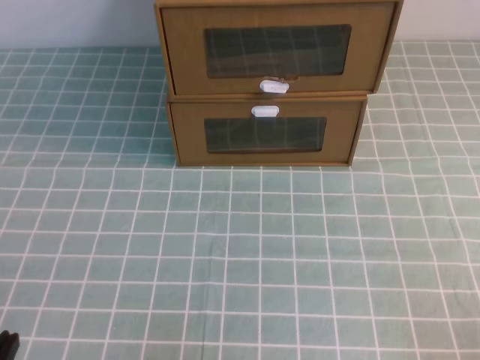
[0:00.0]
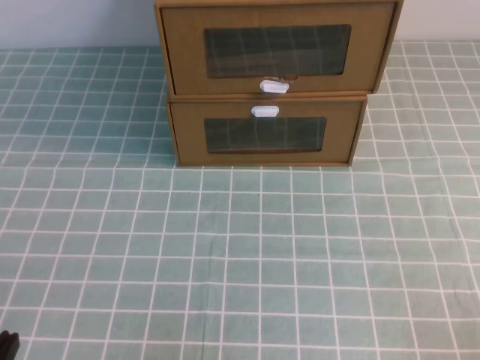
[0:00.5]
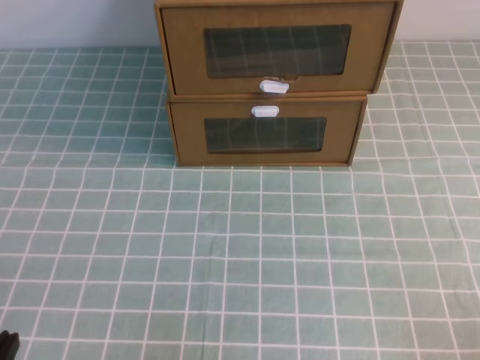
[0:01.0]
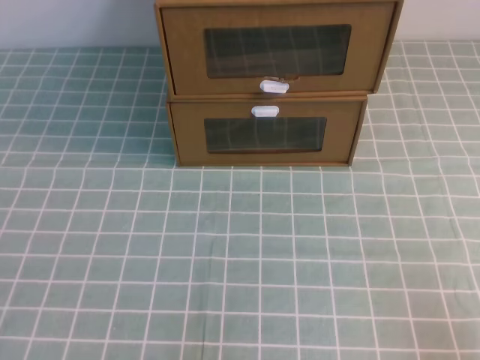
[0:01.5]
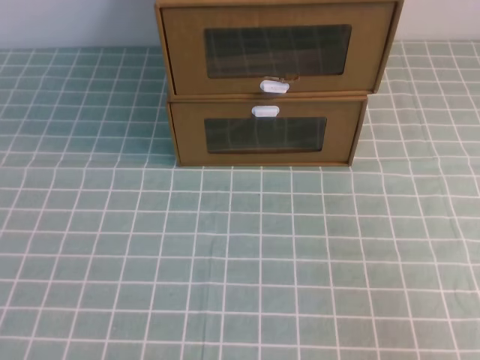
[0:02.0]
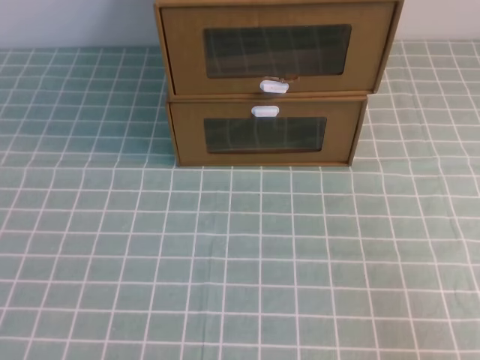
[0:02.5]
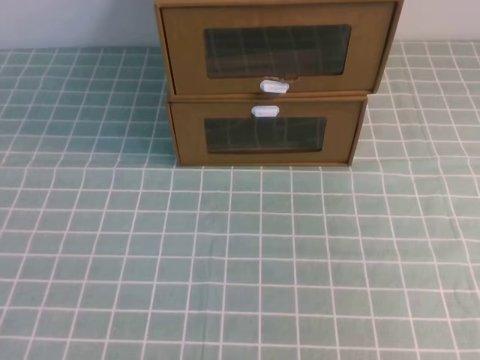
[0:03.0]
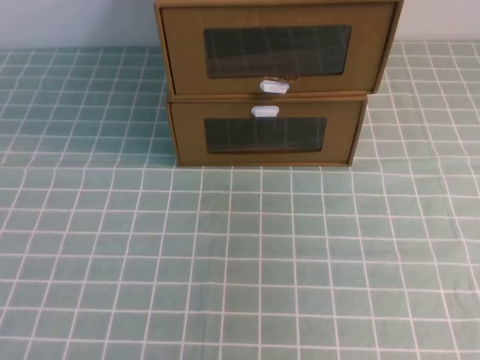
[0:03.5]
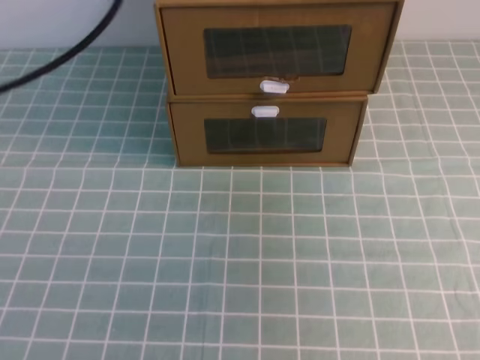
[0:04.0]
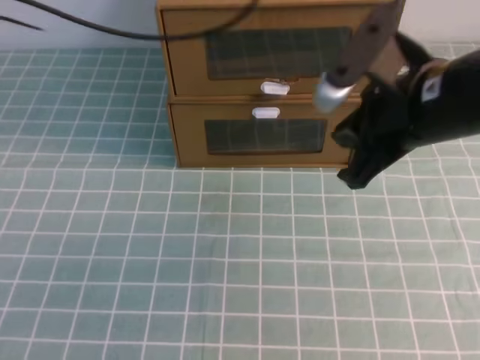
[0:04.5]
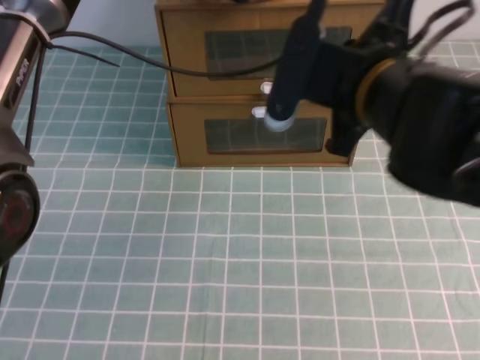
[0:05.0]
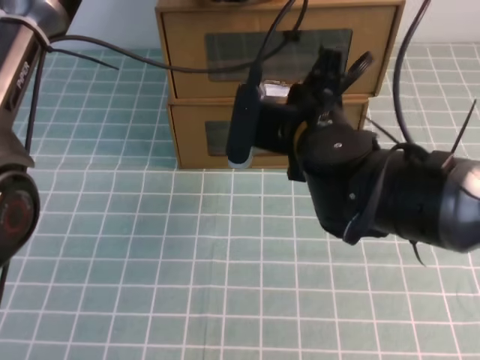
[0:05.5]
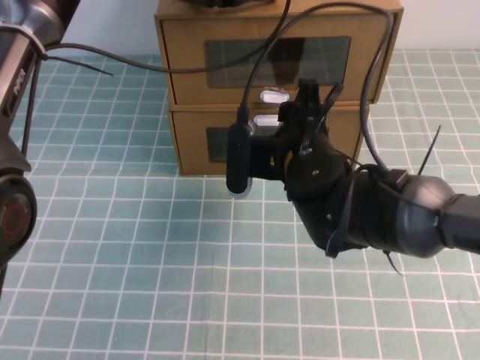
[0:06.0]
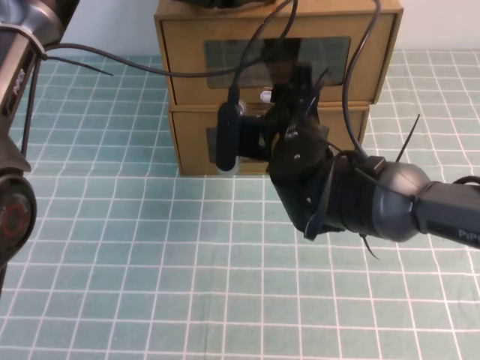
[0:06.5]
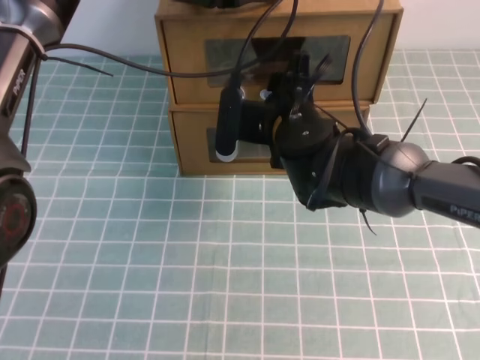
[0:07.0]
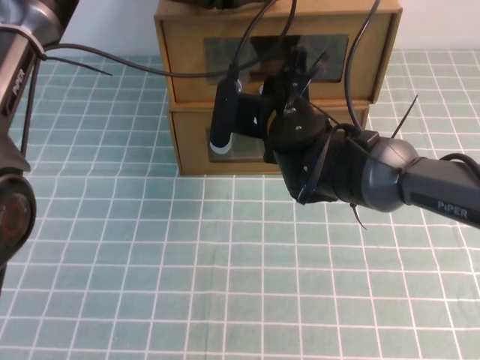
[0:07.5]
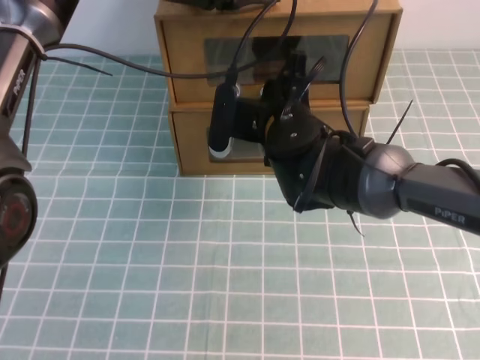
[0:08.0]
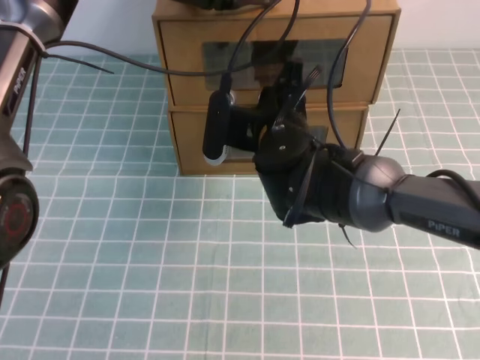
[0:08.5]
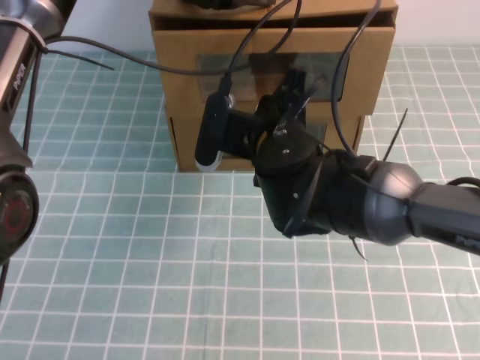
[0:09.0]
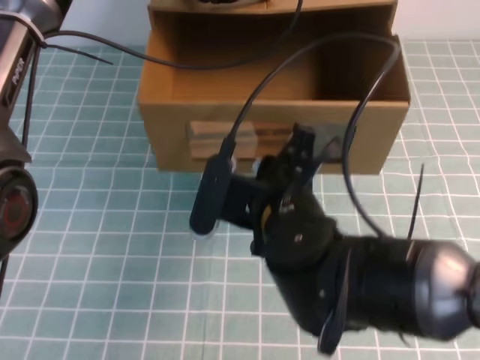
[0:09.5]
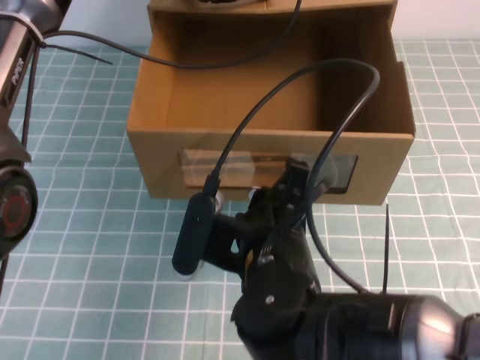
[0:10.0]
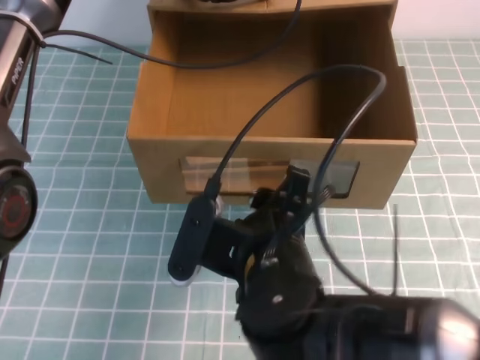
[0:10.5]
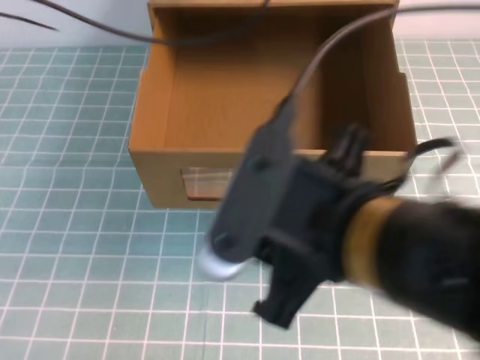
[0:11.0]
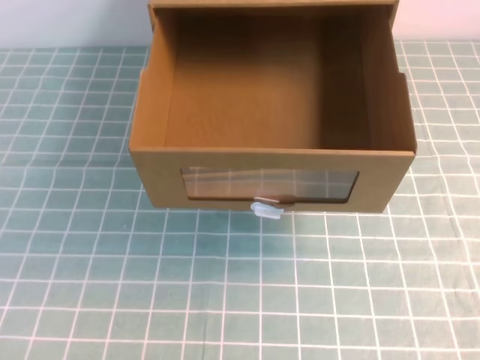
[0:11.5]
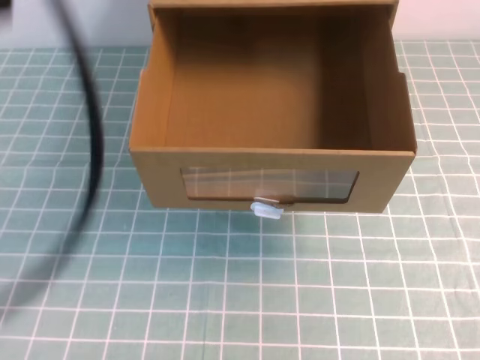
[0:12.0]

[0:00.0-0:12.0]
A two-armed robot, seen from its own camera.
Task of the whole recording: open the shoebox on the cyan tablecloth.
0:02.0 to 0:04.0: The left gripper shifts some 35 cm forward and upward. Meanwhile the right gripper moves upward and forward, some 25 cm.
0:04.0 to 0:06.0: The right gripper travels to the left and downward by approximately 30 cm, and opens its fingers, while the left gripper shifts about 25 cm forward, to the right and downward.
0:06.0 to 0:08.0: The right gripper moves roughly 5 cm, and closes its fingers.
0:08.0 to 0:10.0: The right gripper shifts about 15 cm backward.
0:10.0 to 0:12.0: The left gripper is displaced backward, upward and to the left by some 40 cm. The right gripper heads to the right, upward and backward, covering about 35 cm, and opens and closes again.

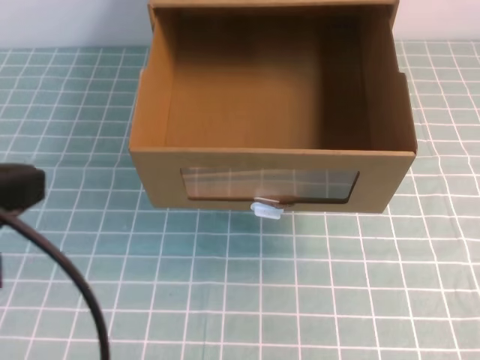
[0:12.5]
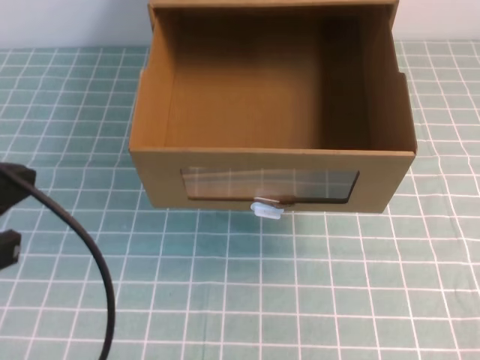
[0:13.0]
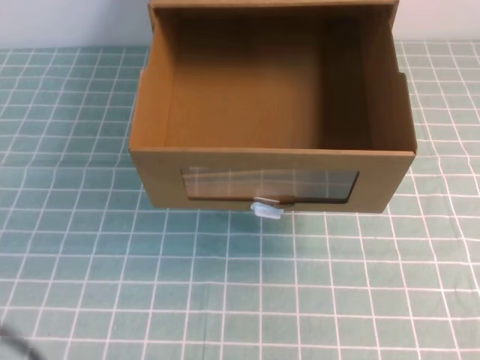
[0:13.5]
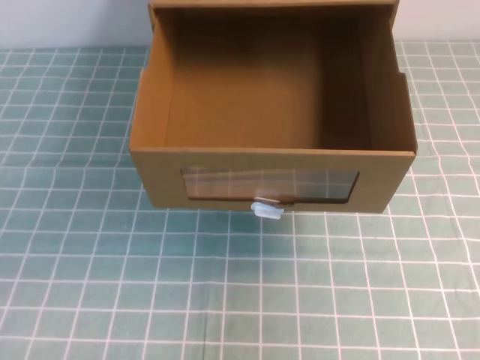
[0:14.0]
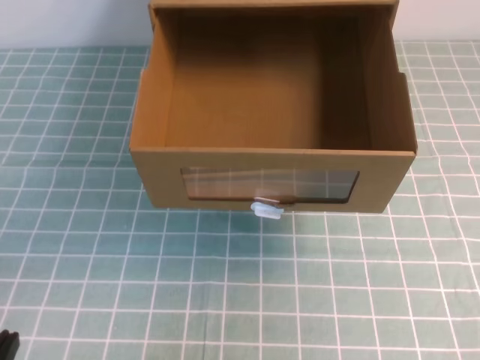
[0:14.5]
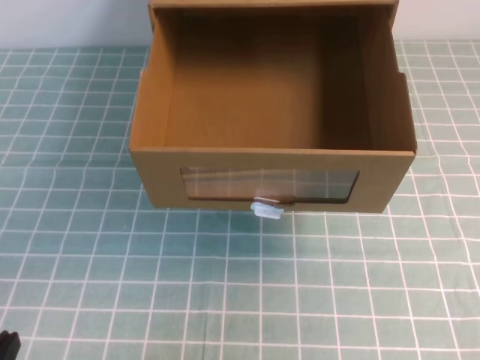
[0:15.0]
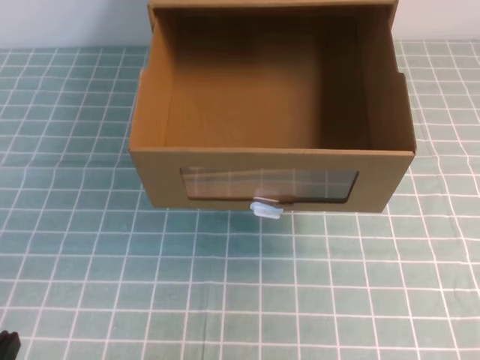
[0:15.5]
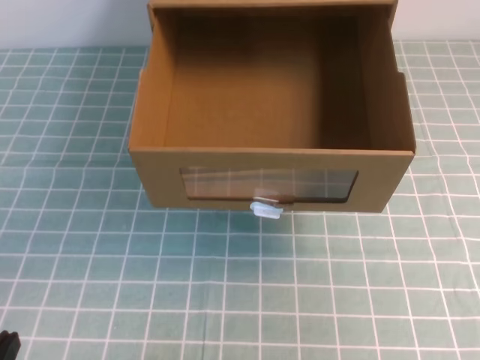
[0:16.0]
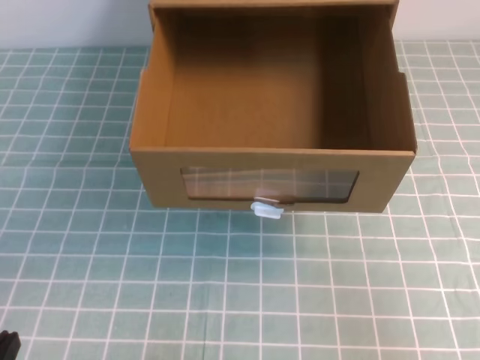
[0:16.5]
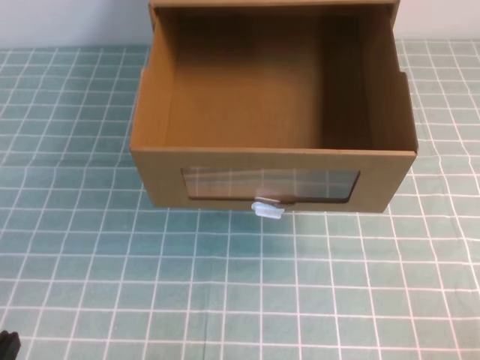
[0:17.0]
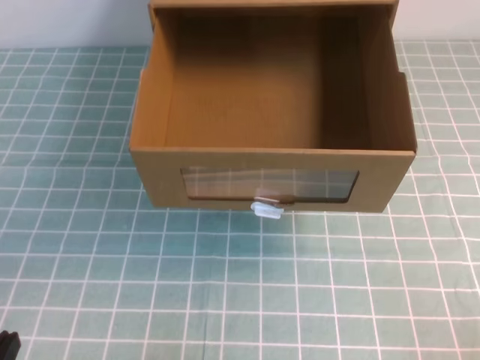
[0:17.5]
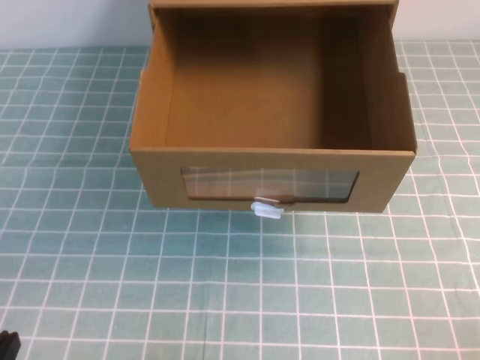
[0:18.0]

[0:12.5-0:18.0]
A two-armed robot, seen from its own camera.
Task of the whole recording: open the shoebox on the cyan tablecloth.
Step, 0:12.5 to 0:18.0: Open the shoe box.
0:12.5 to 0:14.5: The left gripper goes some 25 cm downward.
0:16.0 to 0:18.0: The right gripper heads downward, covering about 25 cm.
